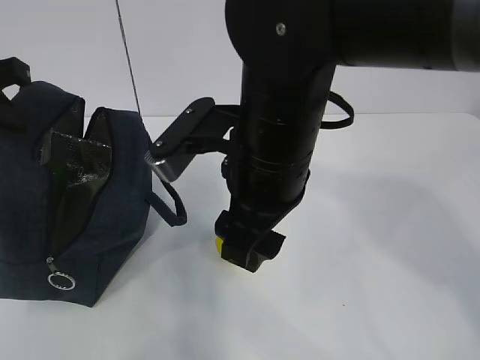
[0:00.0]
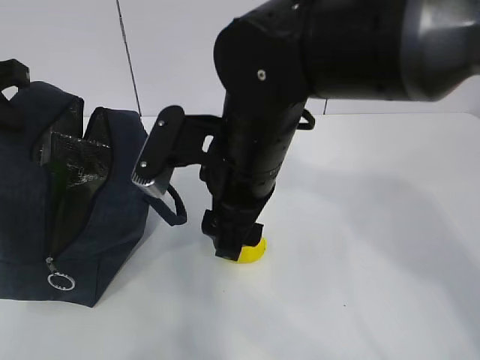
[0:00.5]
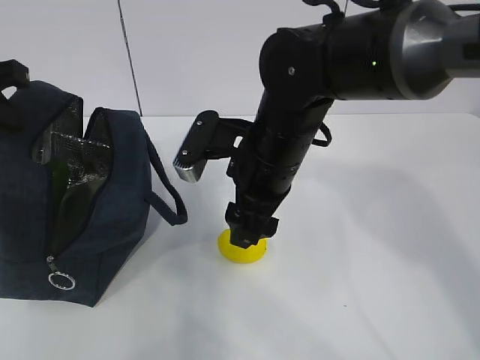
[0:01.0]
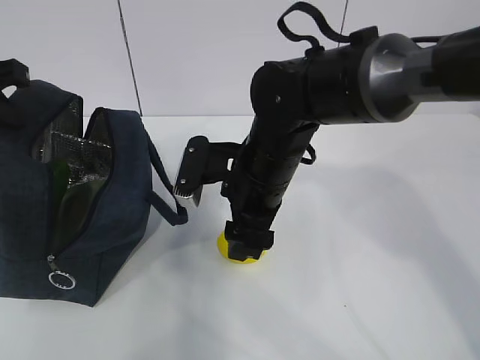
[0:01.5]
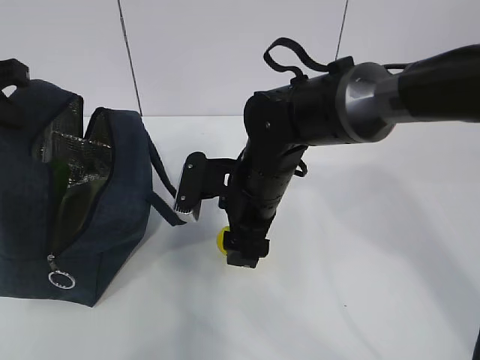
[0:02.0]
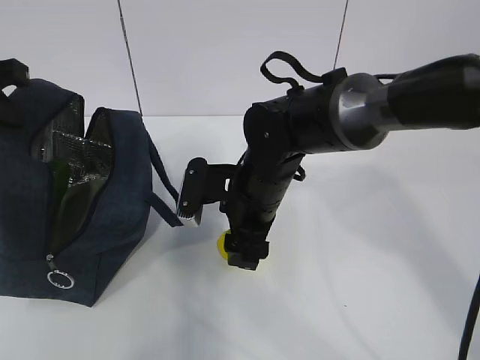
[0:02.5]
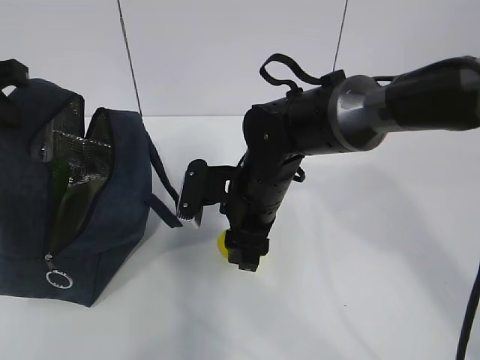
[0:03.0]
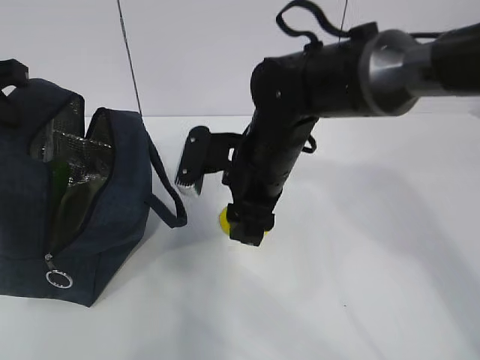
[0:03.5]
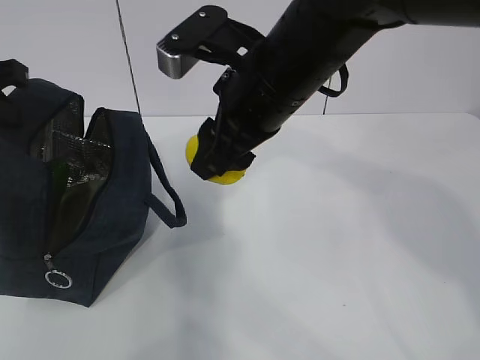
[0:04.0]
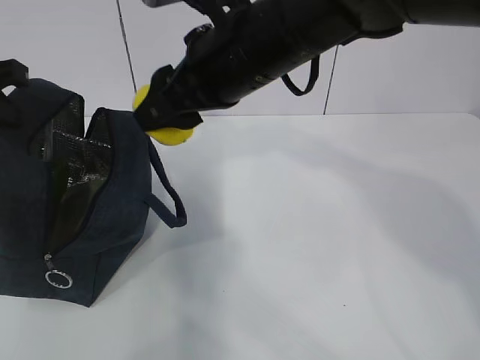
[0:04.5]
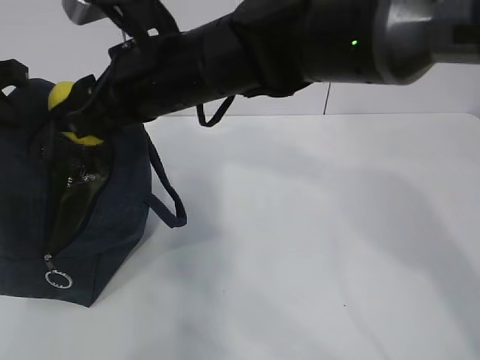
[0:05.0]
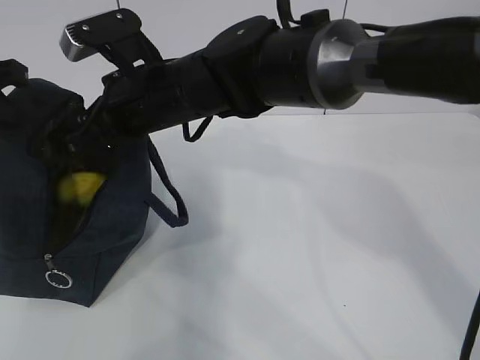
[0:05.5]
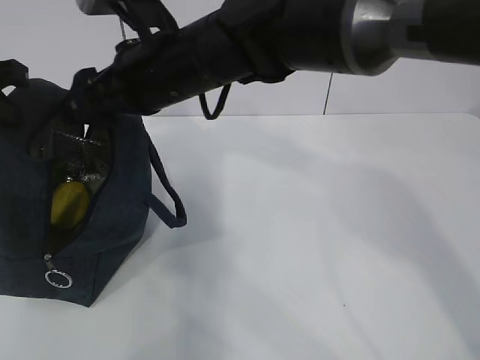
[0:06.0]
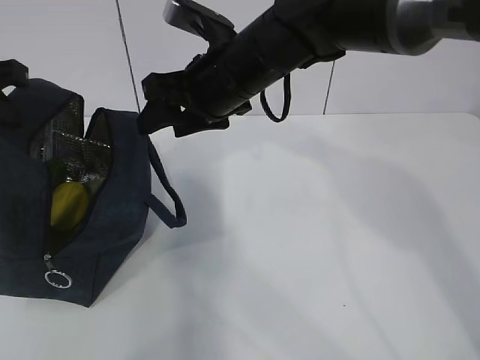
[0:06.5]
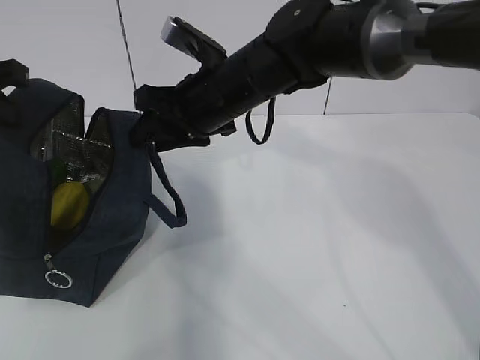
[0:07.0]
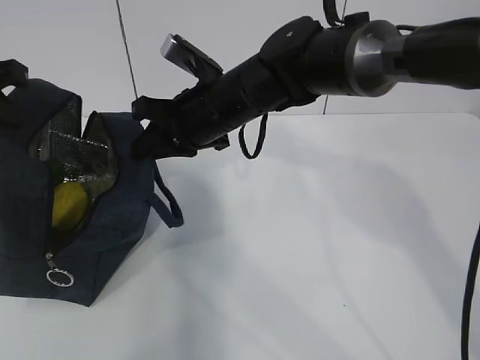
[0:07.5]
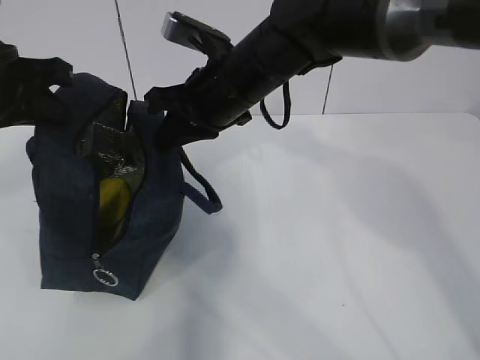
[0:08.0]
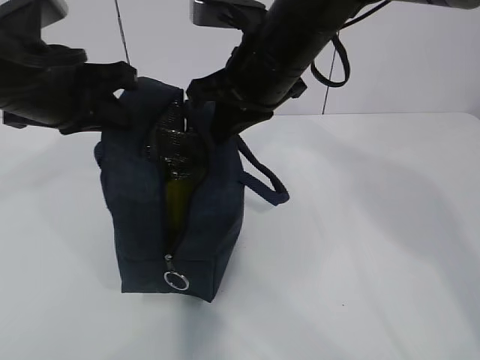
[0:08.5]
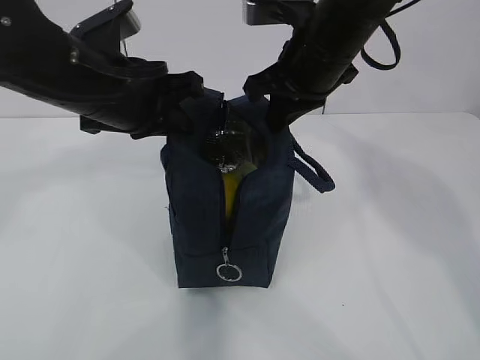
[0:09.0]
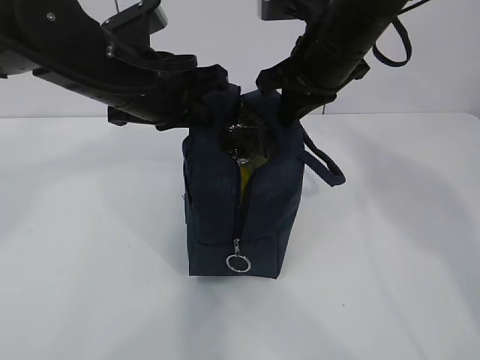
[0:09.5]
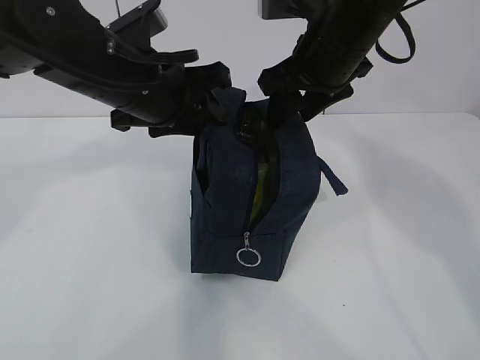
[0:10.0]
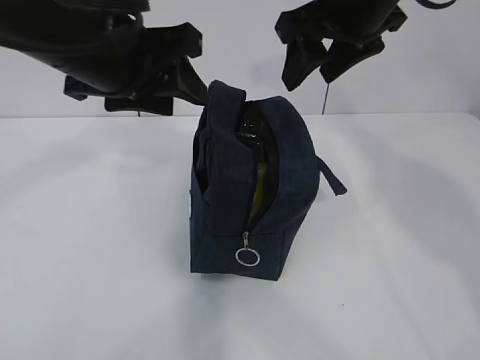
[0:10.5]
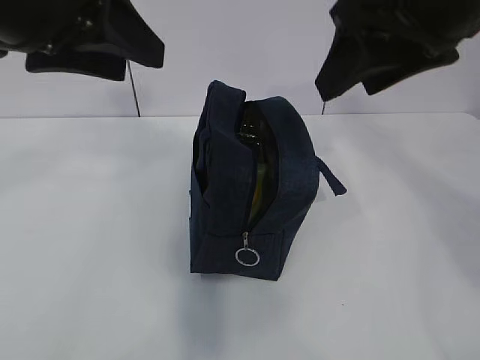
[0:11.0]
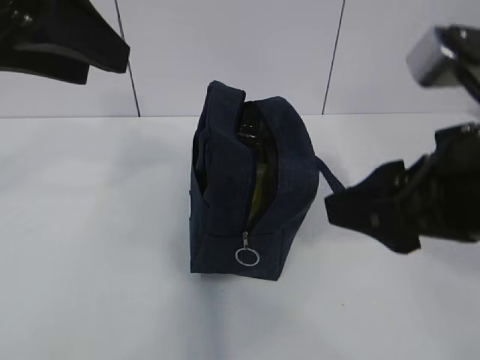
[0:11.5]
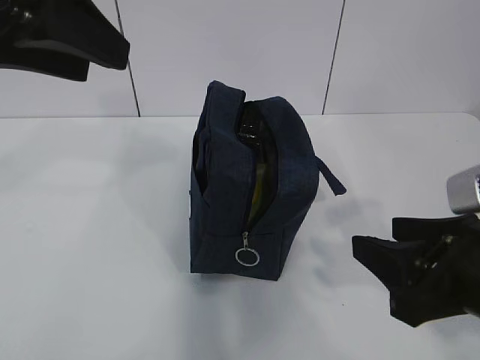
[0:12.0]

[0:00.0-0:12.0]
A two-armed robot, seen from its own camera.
Step, 0.0 to 1.0 s: Move the lunch bag to the right.
0.0 to 2.0 s: The right gripper moves downward and forward, roughly 15 cm.
2.0 to 4.0 s: The right gripper moves upward, roughly 15 cm.
4.0 to 6.0 s: The right gripper is displaced to the left by roughly 10 cm.
6.0 to 8.0 s: The right gripper moves to the right, approximately 5 cm, and closes.
8.0 to 10.0 s: Both grippers move to the right, approximately 10 cm. The left gripper opens, while the right gripper opens its fingers.
10.0 to 12.0 s: The right gripper heads backward, covering approximately 25 cm. Meanwhile the left gripper goes roughly 20 cm upward, backward and to the left.

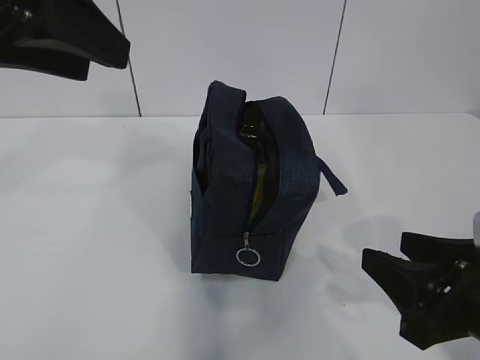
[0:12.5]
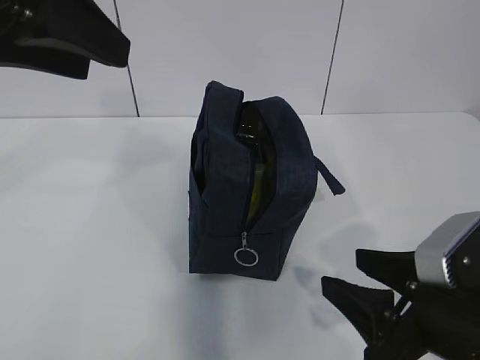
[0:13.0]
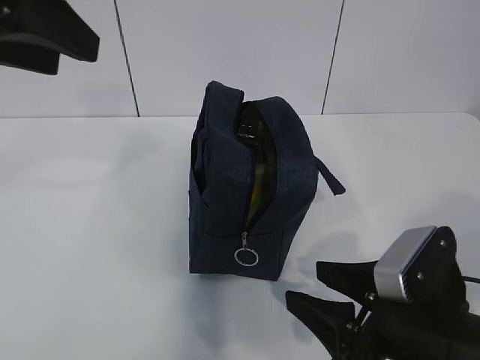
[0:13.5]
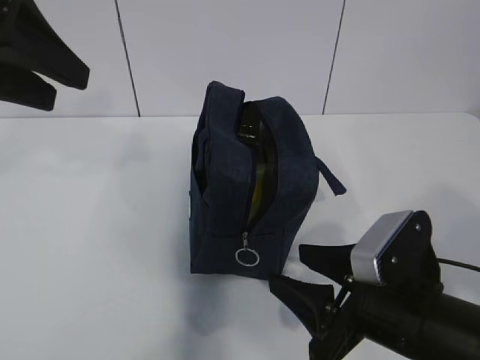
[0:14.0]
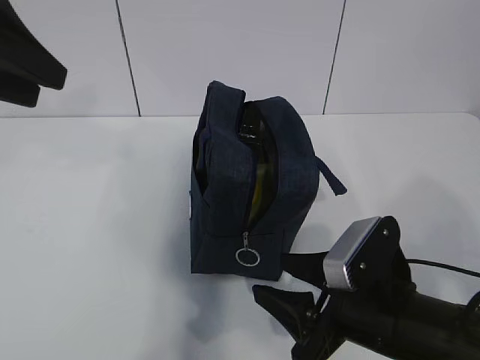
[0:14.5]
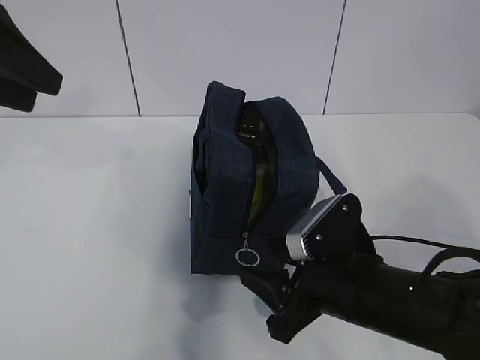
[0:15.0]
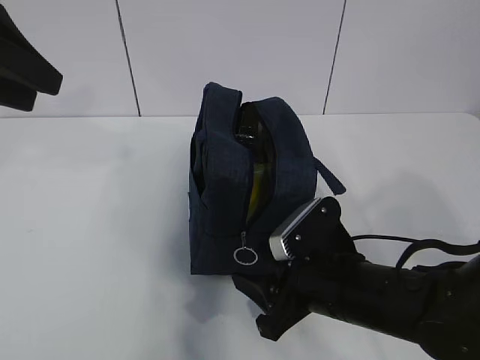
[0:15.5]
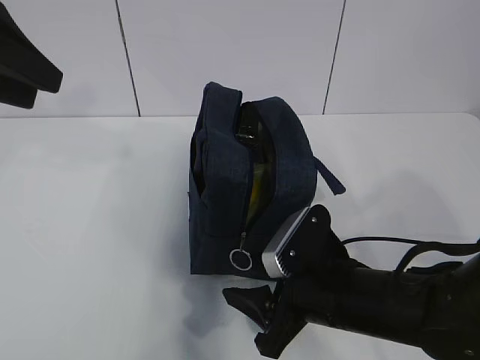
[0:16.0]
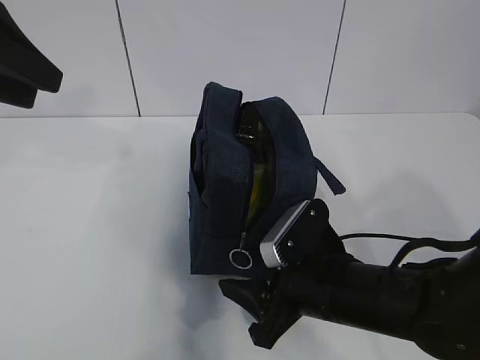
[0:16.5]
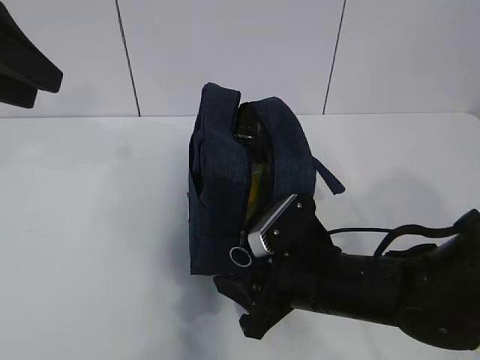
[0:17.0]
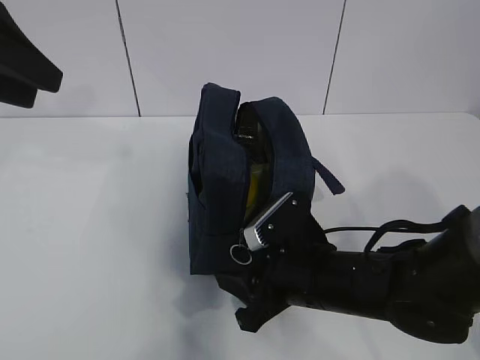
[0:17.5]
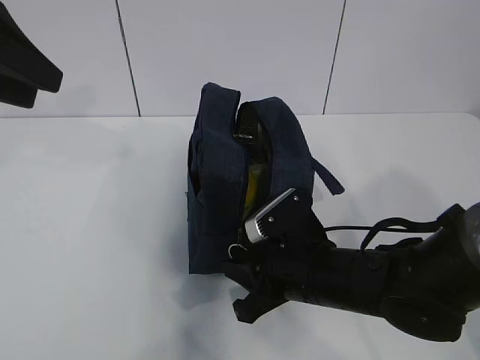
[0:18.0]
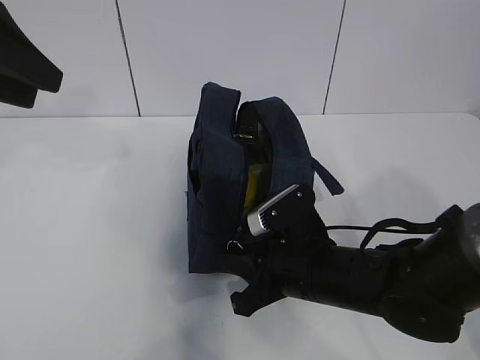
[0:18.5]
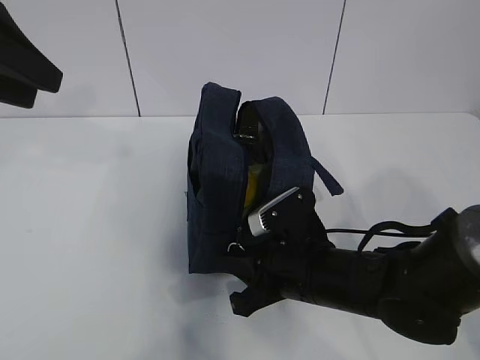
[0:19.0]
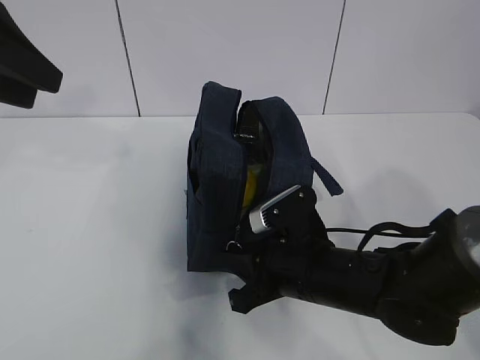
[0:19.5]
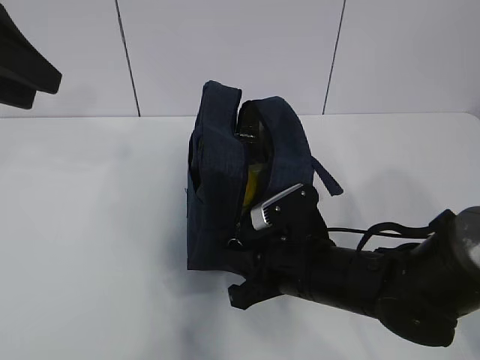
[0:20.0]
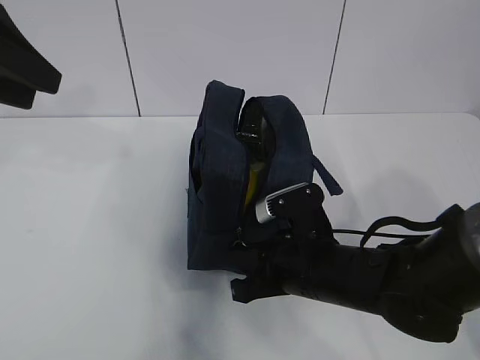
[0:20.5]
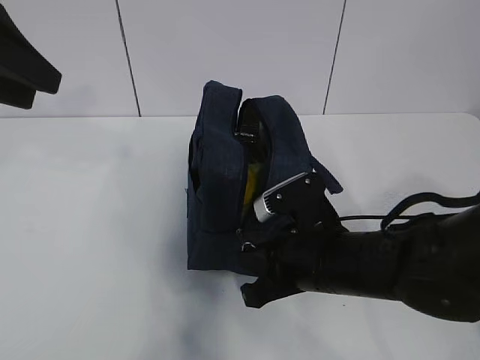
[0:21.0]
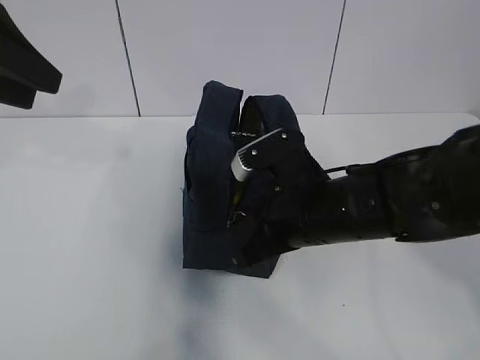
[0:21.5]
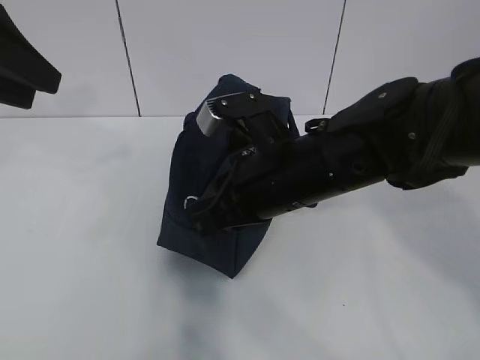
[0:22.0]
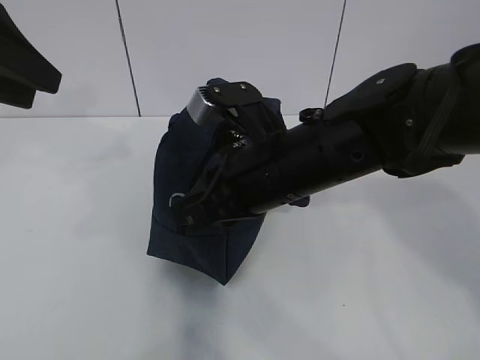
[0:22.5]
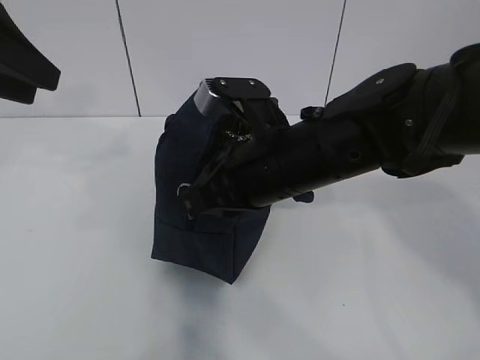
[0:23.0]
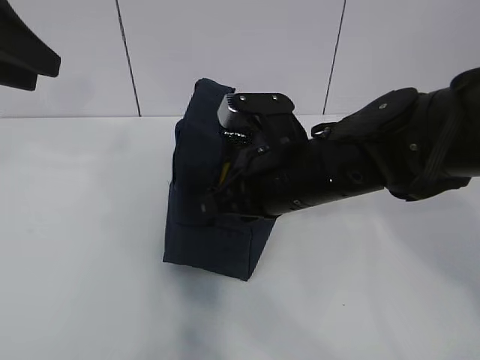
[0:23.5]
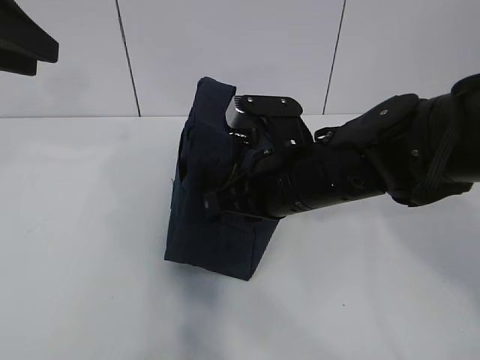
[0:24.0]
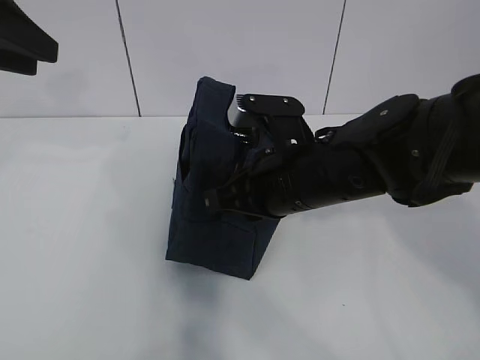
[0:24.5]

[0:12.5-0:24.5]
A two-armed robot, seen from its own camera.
12.5 to 14.5 s: The left gripper moves to the left and forward, approximately 10 cm, while the right gripper is displaced downward and to the left by roughly 10 cm.
14.5 to 16.5 s: The right gripper changes place by about 5 cm.
16.5 to 18.5 s: The right gripper closes its fingers.
18.5 to 20.5 s: The grippers stay close to where they were, moving slightly.
20.5 to 22.5 s: The right gripper heads upward, covering some 15 cm.

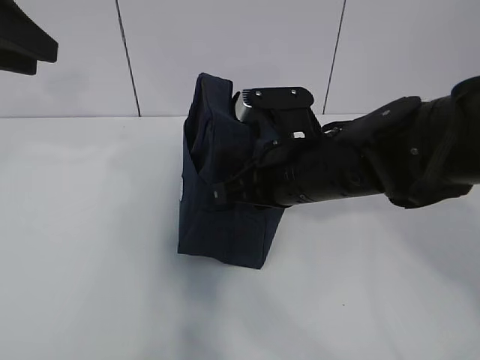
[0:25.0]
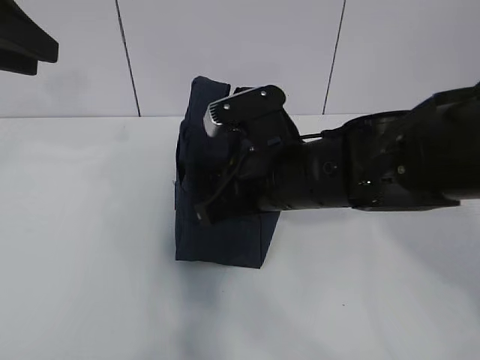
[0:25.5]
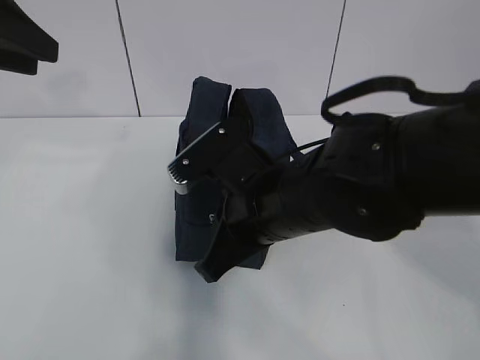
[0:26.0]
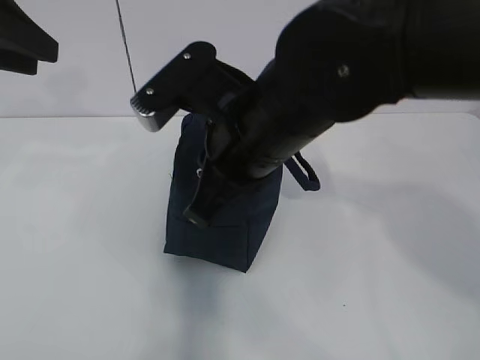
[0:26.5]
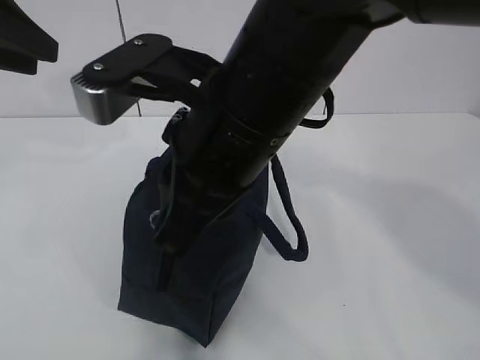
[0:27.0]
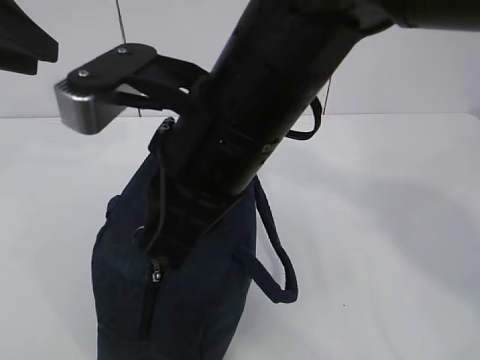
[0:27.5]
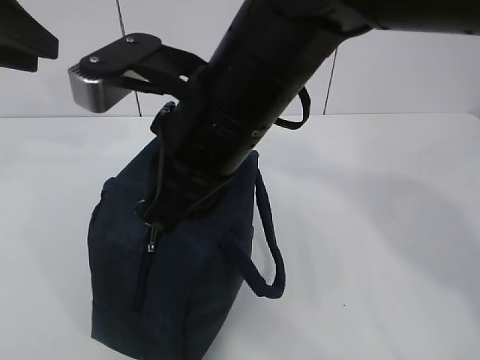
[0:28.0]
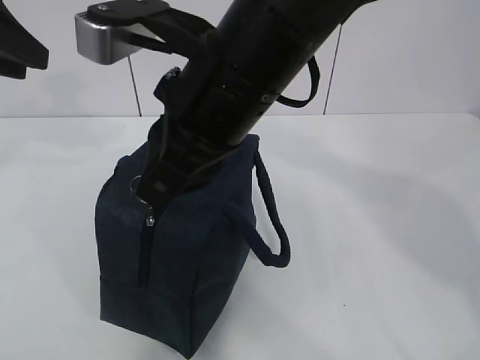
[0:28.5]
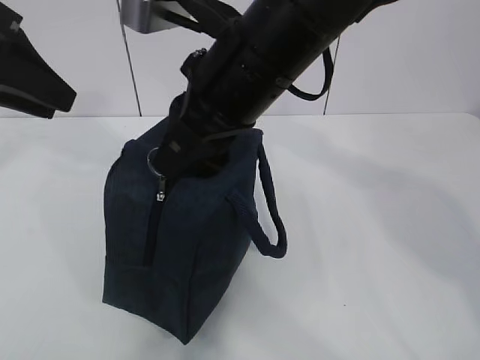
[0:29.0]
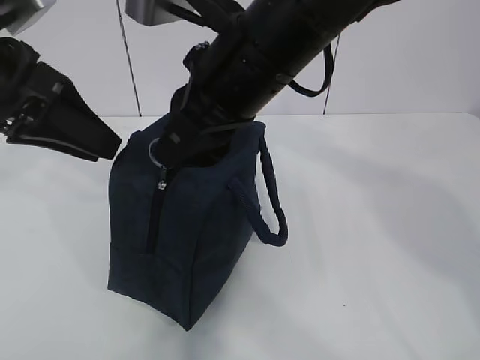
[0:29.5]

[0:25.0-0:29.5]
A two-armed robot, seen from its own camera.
25.0 to 27.0 s: The right gripper shifts some 15 cm upward, to the left and backward.
27.0 to 29.5 s: The right gripper goes approximately 5 cm forward, while the left gripper travels downward by some 5 cm.
